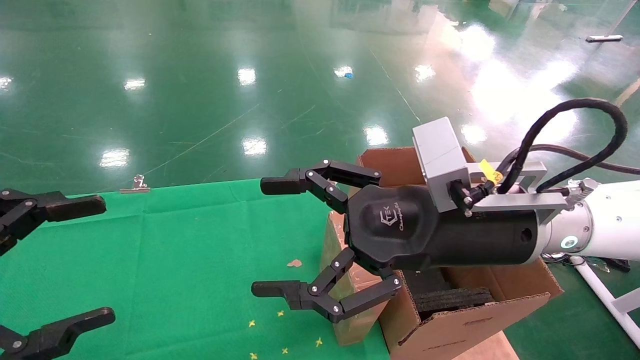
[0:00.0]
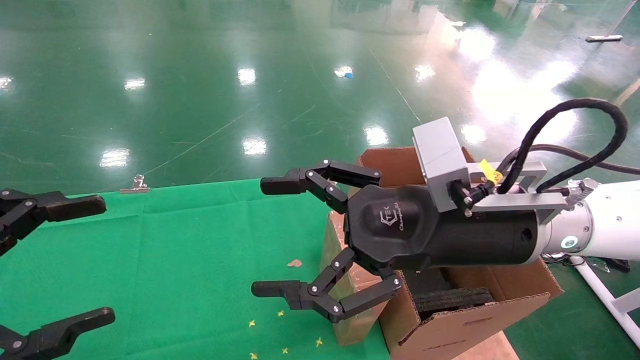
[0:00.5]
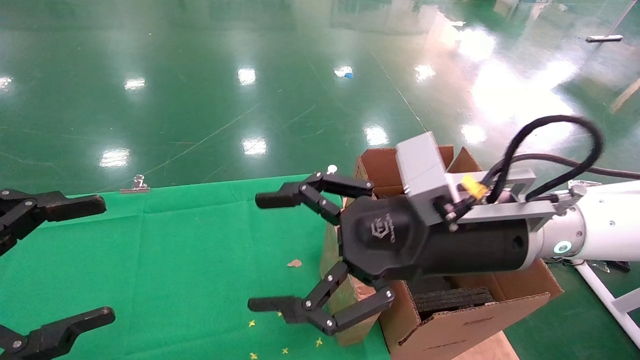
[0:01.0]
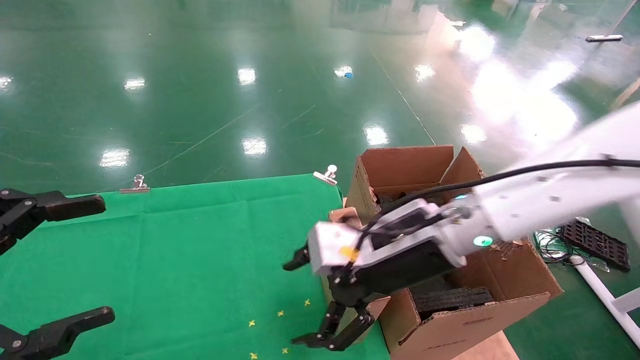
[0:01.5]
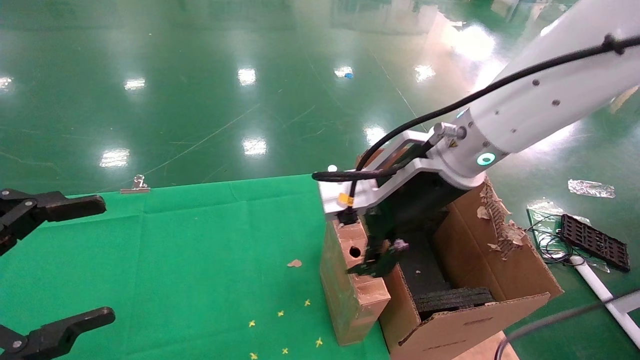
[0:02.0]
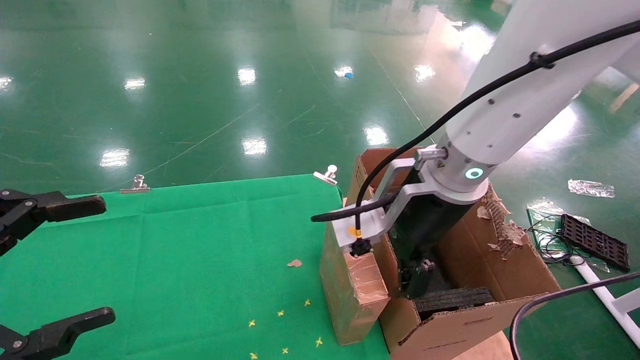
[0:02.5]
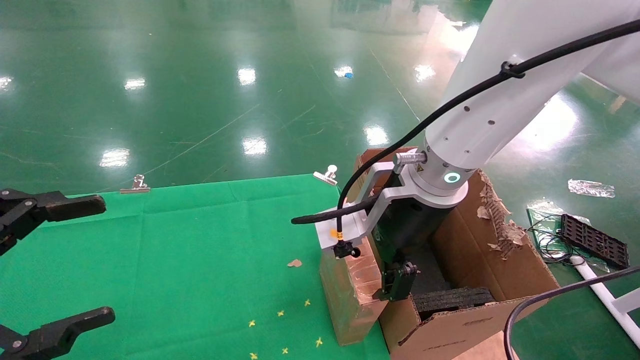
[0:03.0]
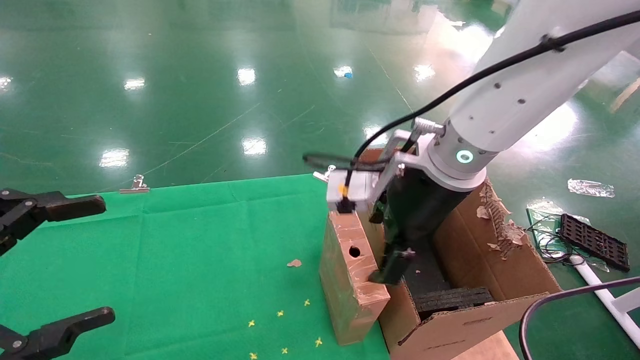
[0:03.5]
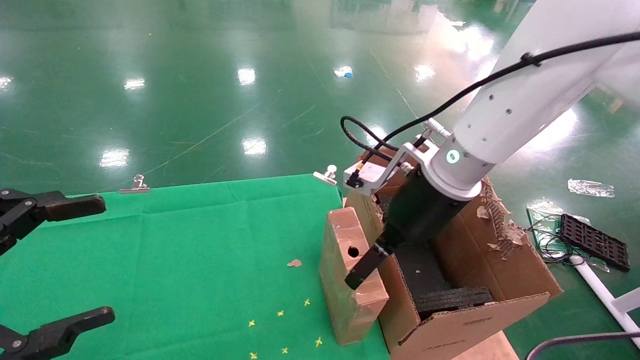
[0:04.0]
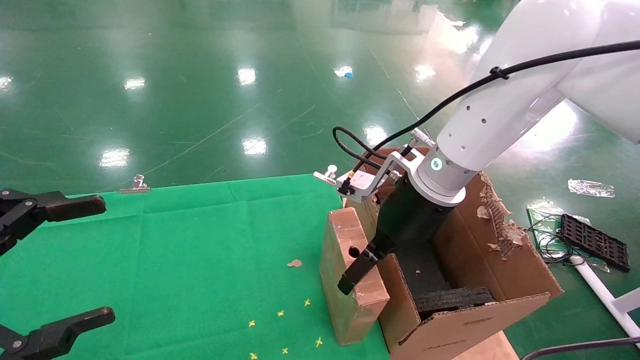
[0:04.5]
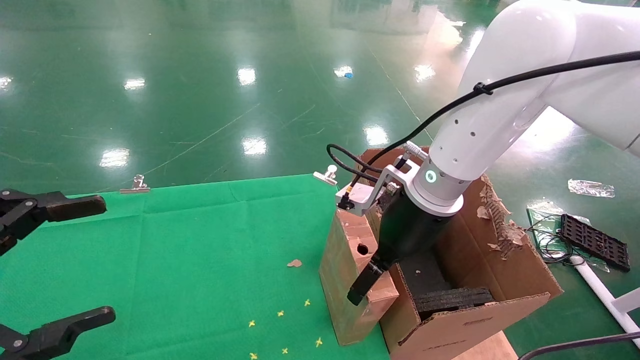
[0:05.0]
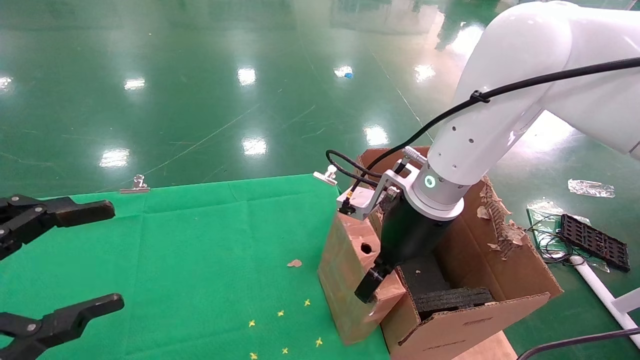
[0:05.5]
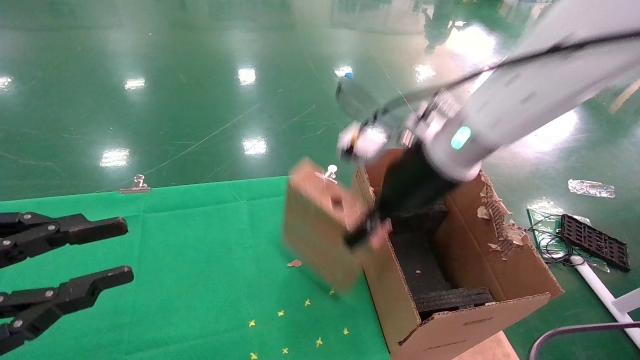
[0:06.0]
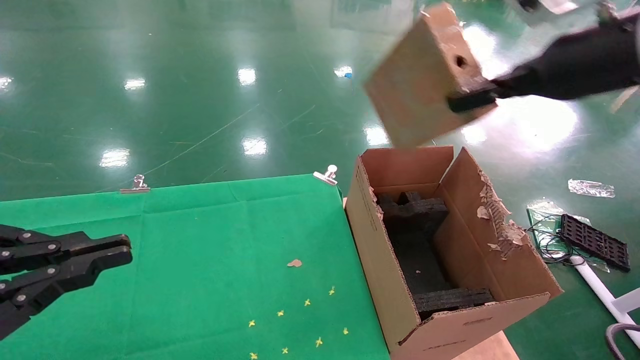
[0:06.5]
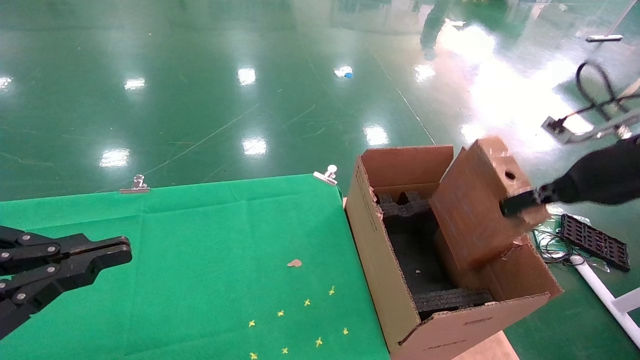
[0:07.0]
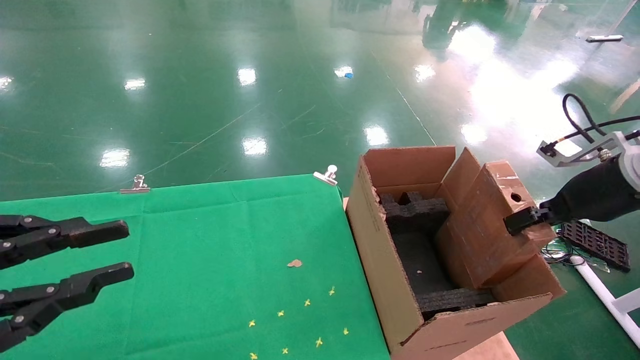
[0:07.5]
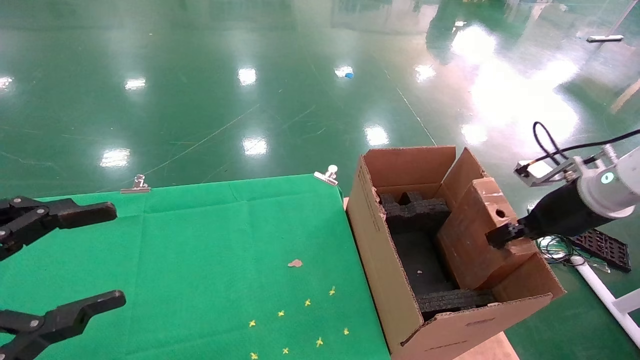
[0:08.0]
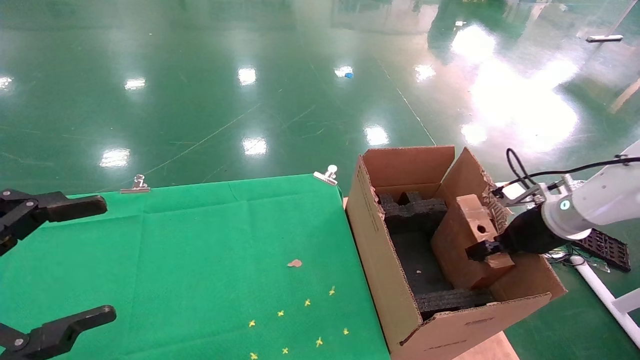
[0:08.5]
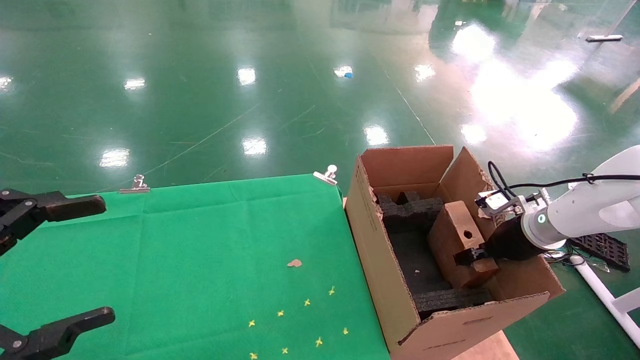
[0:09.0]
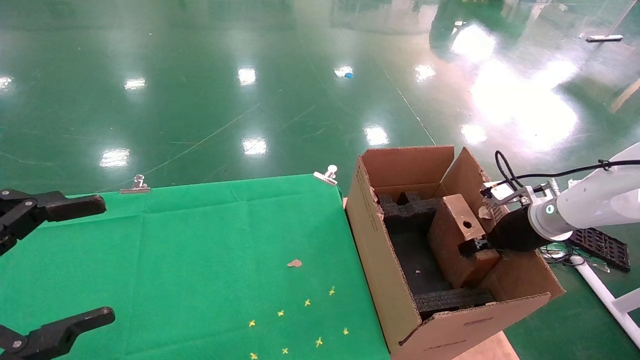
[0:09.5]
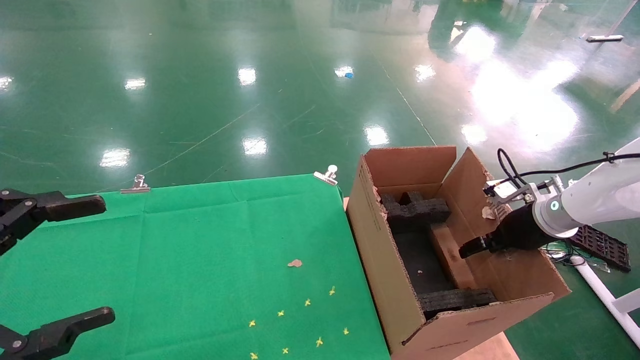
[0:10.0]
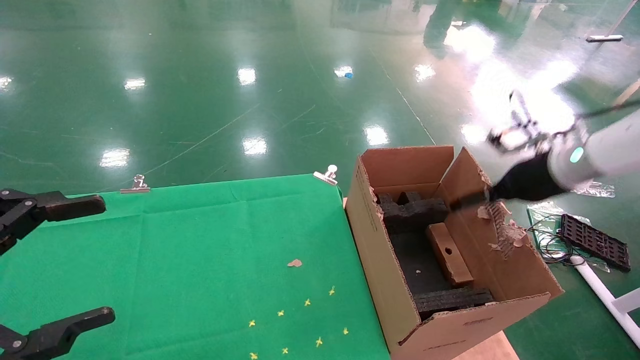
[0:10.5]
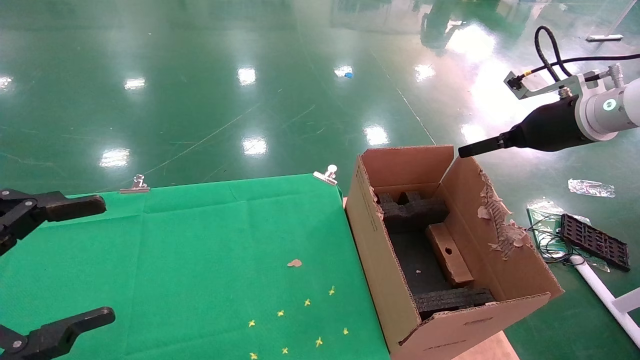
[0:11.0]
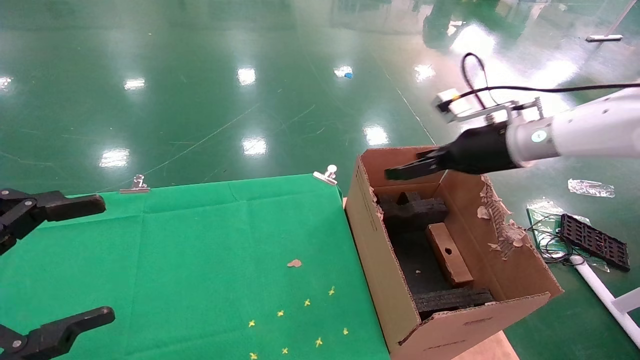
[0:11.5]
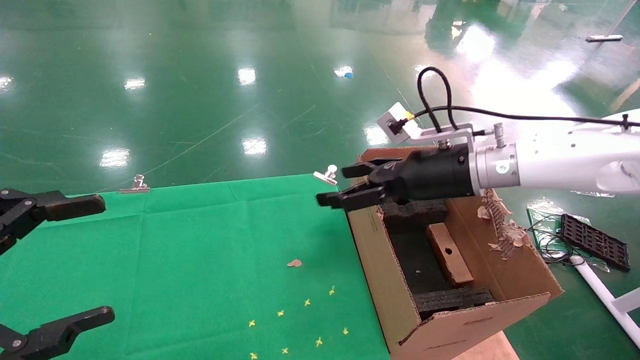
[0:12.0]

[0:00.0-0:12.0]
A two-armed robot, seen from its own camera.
Task of the whole recording: using a robotic arm to pick up a cardboard box and palace it the carton.
Step, 0:01.5 to 0:05.5: Pick up the mouse and the power cord paper box.
Step, 0:06.0 to 0:10.0: Place the mouse and the power cord paper box into the container.
0:00.0 to 0:02.0: The right gripper shifts roughly 5 cm forward.
0:04.0 to 0:06.0: The right gripper shifts by some 5 cm, and closes; the left gripper closes up.
0:06.0 to 0:08.0: The left gripper closes and opens again. Meanwhile the right gripper shifts some 25 cm to the right and downward.
0:08.0 to 0:10.0: The right gripper travels downward and forward by approximately 10 cm, and opens up. Meanwhile the left gripper opens its fingers.
0:10.0 to 0:12.0: The right gripper goes roughly 20 cm to the left and upward, and opens.

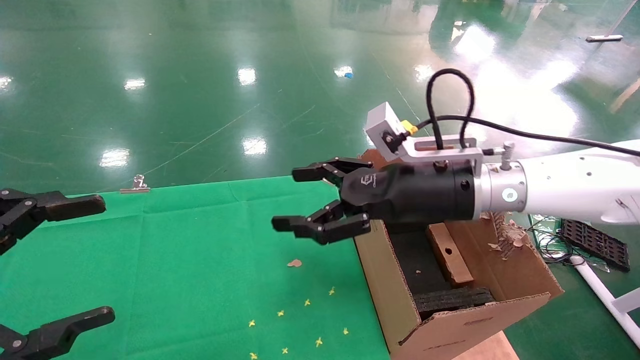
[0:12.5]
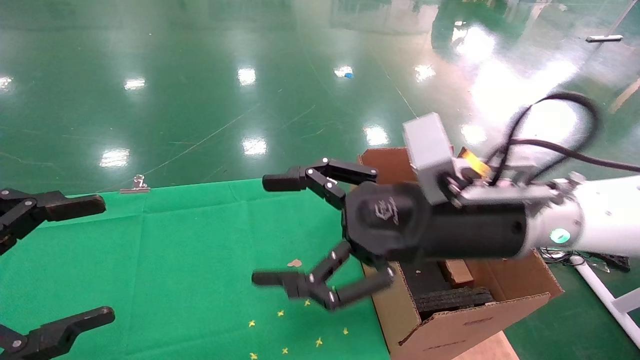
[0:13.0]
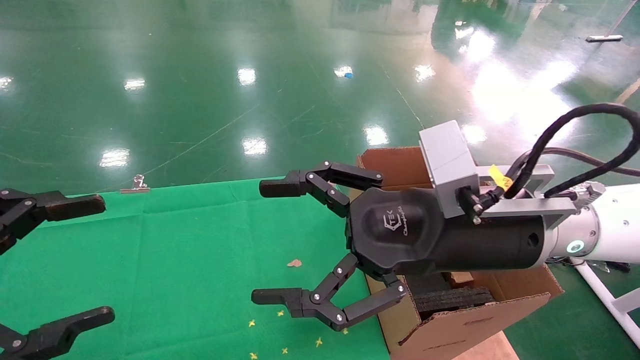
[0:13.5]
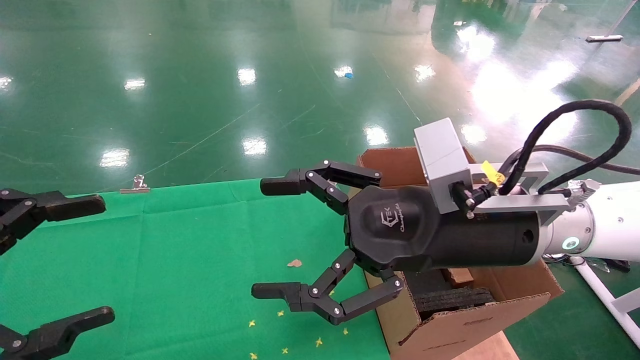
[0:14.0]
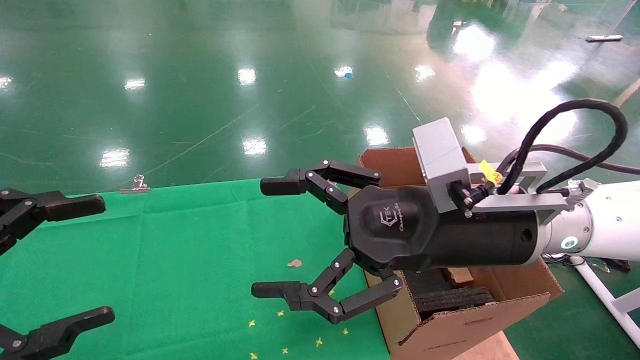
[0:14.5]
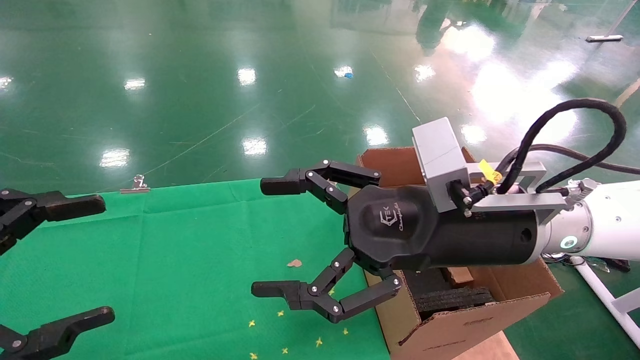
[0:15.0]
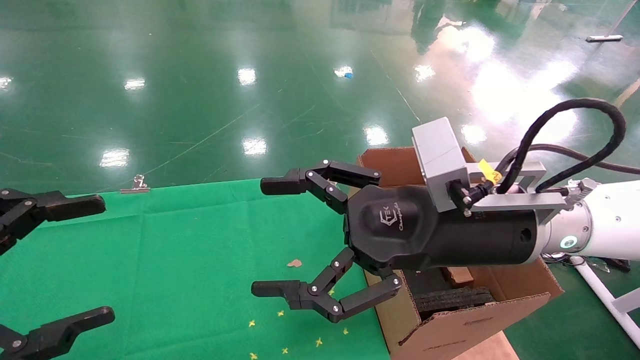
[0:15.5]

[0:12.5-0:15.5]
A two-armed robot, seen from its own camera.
Task of the whole recording: using a robotic arm to pick up a cardboard box and palace it the carton.
0:12.5 to 0:14.0: The right gripper is displaced backward by about 10 cm.
0:14.0 to 0:15.5: The two grippers keep their place.
